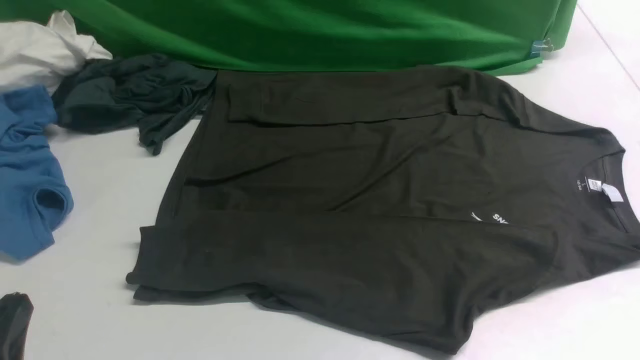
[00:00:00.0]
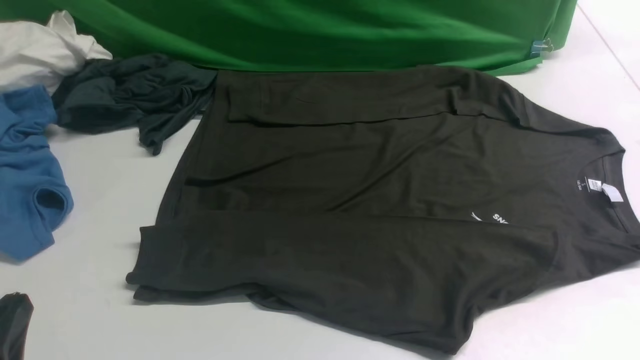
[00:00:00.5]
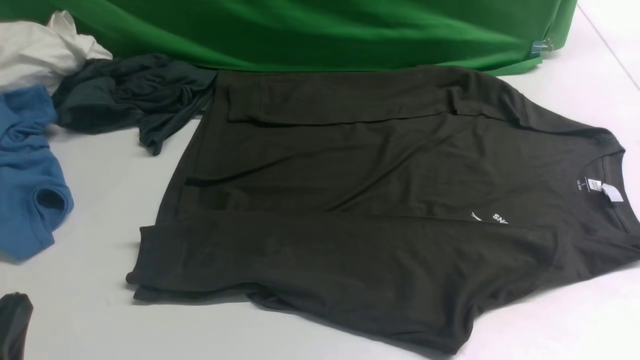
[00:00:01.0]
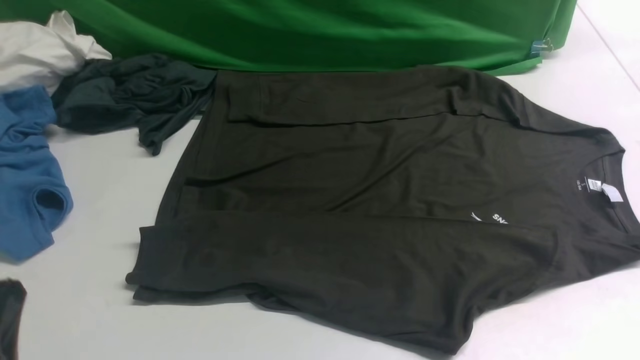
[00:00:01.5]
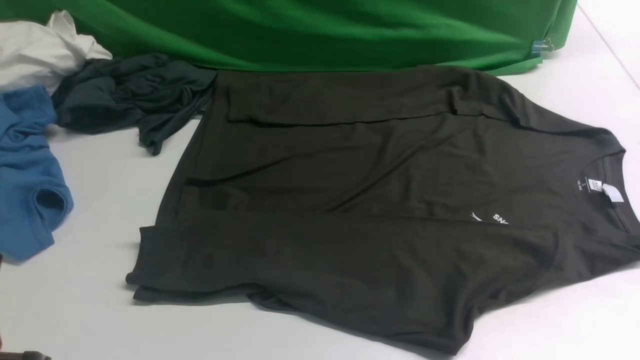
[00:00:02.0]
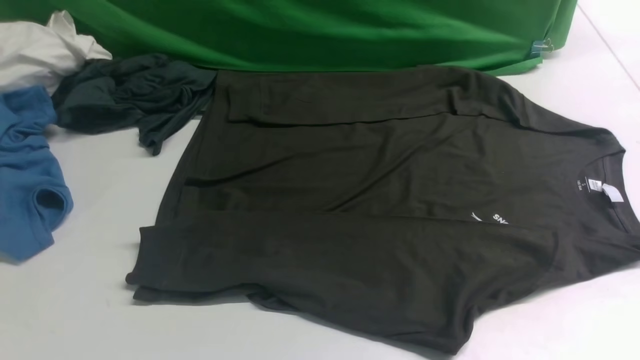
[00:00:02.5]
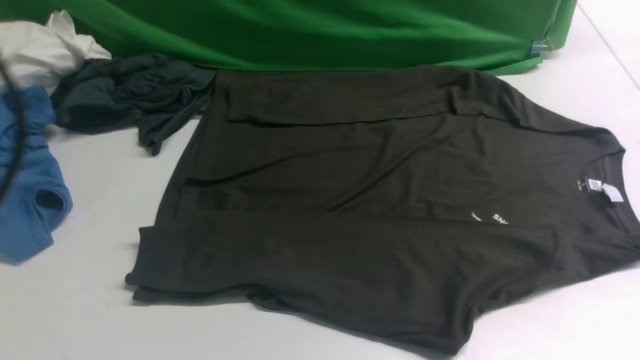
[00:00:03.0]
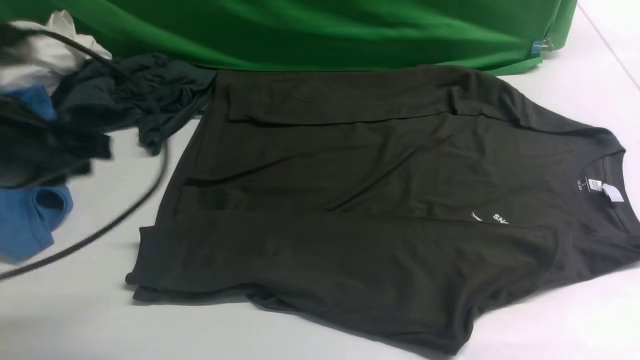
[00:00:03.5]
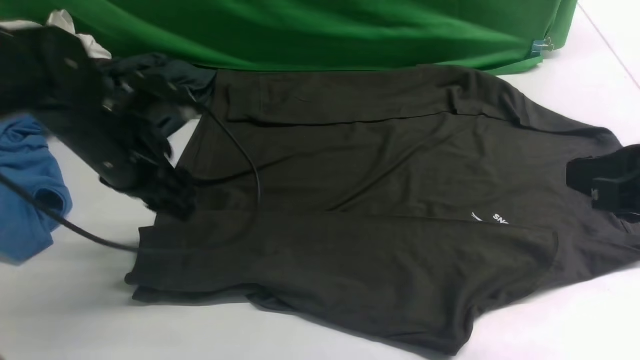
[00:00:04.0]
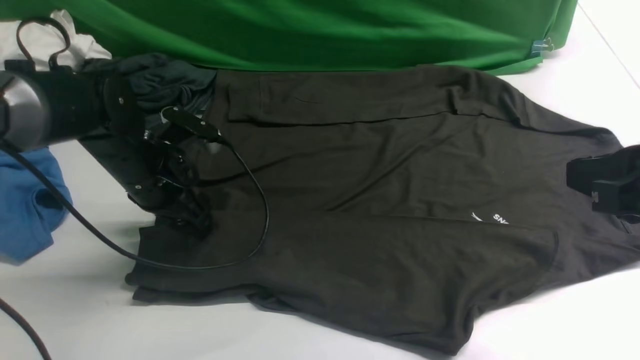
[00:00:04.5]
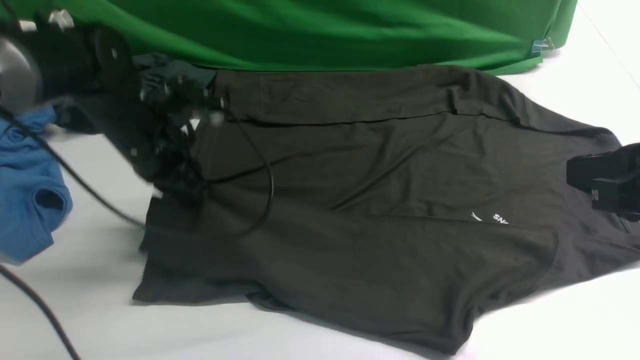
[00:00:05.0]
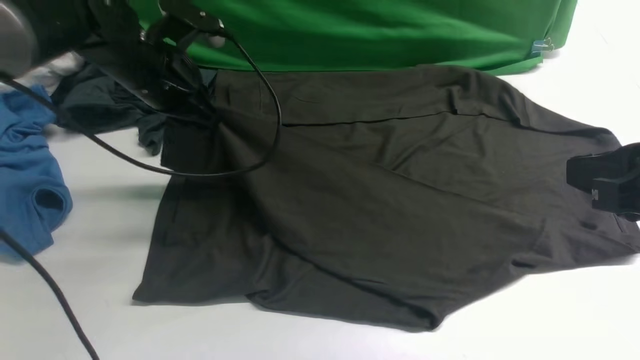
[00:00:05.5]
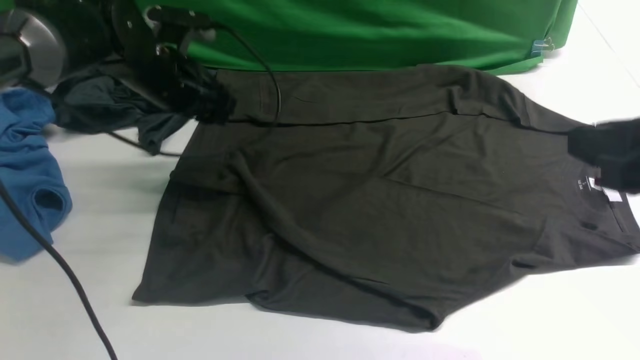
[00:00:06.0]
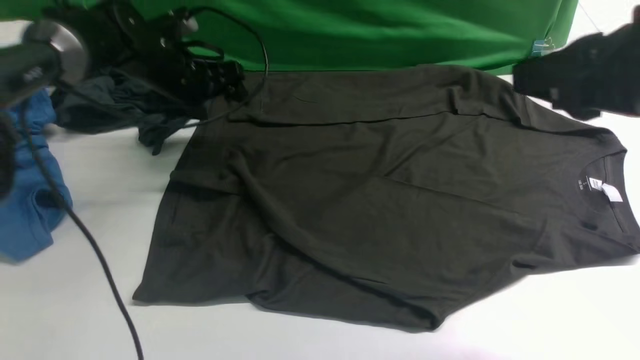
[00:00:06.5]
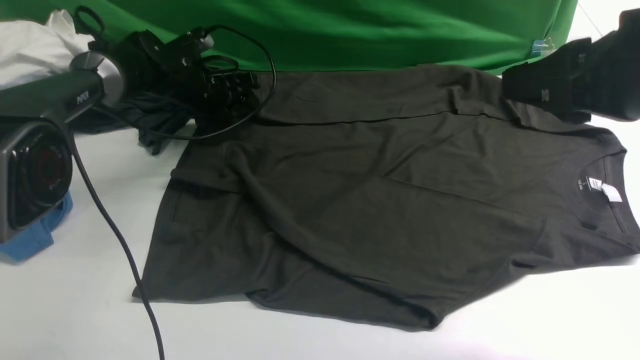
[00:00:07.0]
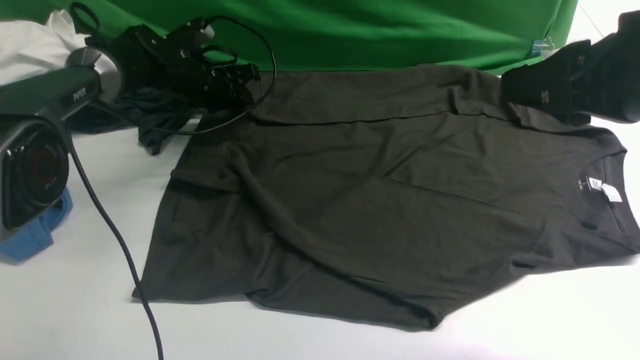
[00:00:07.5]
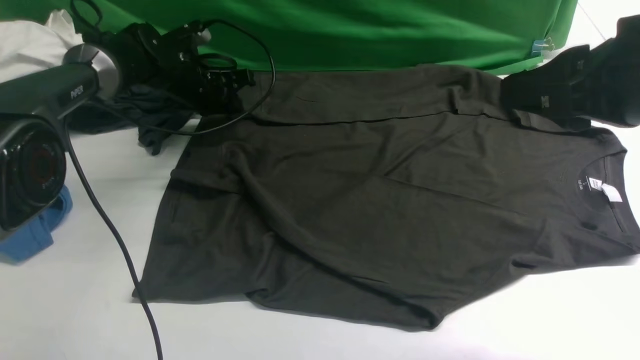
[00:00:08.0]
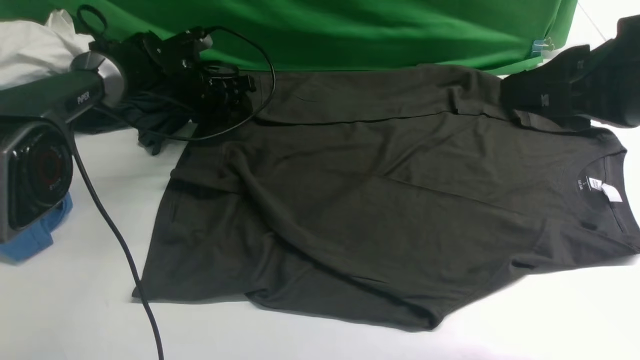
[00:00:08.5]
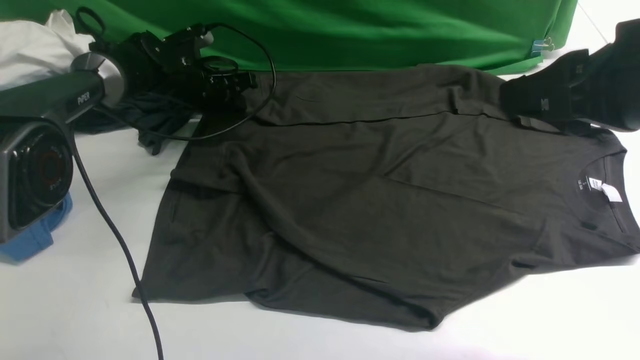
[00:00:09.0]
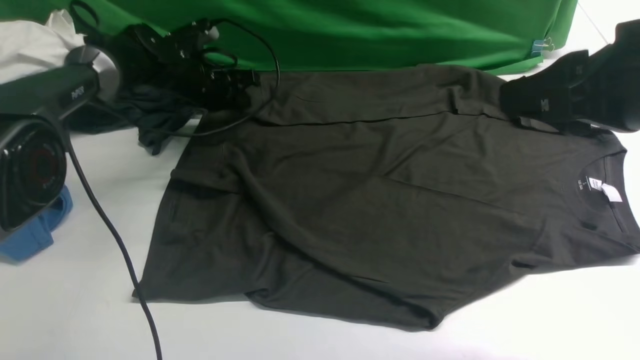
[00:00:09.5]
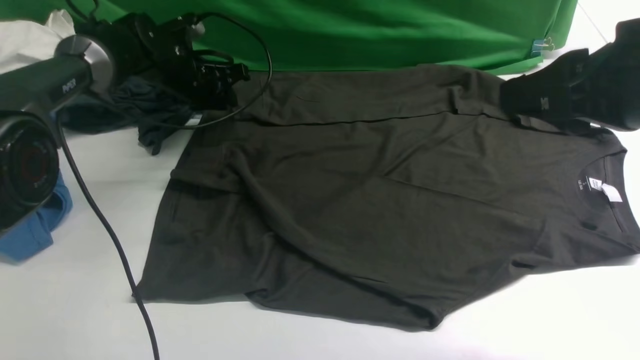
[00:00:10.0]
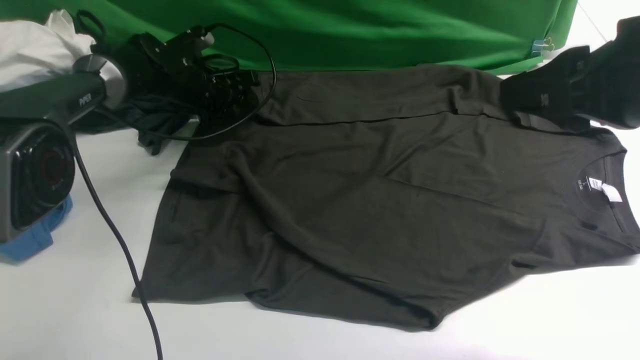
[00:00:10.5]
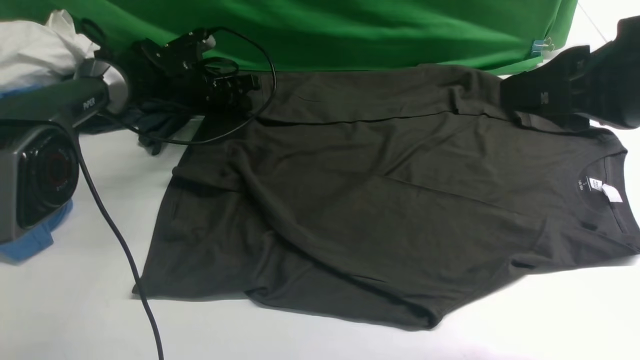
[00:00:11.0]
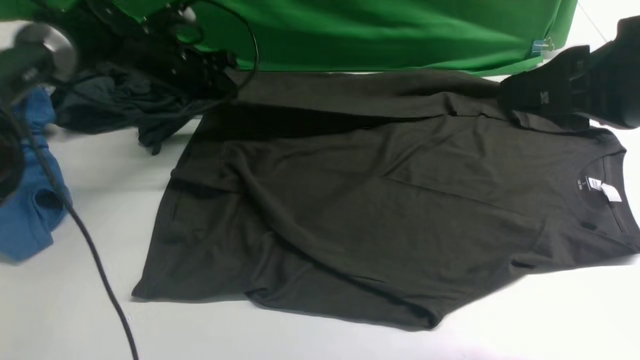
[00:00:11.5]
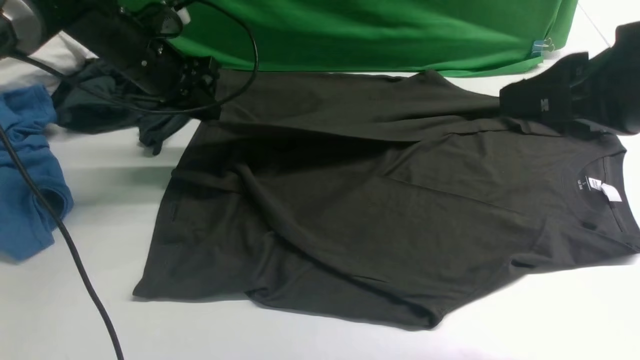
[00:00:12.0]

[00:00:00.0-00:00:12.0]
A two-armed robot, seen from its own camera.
Step, 00:00:00.0 to 00:00:04.5: use the left arm to clamp the cuff closest to it.
Step, 00:00:05.0 to 00:00:06.0: use the left arm to drag and place the cuff at the centered position on the left edge of the fabric.
Step, 00:00:06.5 to 00:00:11.0: use the left arm to clamp the cuff farthest from it.
00:00:02.0 to 00:00:04.0: The right gripper moves forward, upward and to the left, roughly 15 cm. The left gripper is displaced forward by roughly 30 cm, and opens its fingers.
00:00:04.0 to 00:00:06.0: The left gripper shifts some 10 cm forward, and closes, then opens again.
00:00:06.0 to 00:00:08.0: The right gripper shifts by roughly 5 cm; the left gripper travels forward and downward by approximately 10 cm, and closes up.
00:00:08.0 to 00:00:10.0: The grippers make only small movements.
00:00:10.0 to 00:00:12.0: The left gripper moves upward and backward, roughly 10 cm.

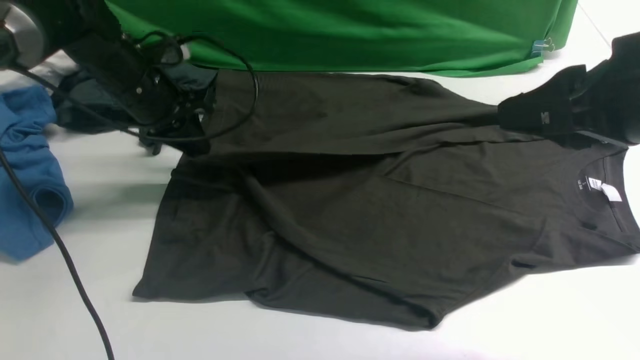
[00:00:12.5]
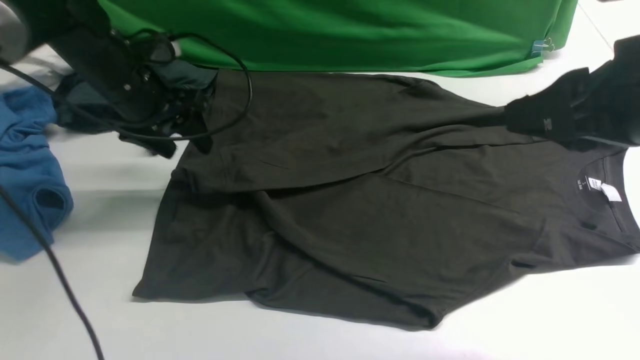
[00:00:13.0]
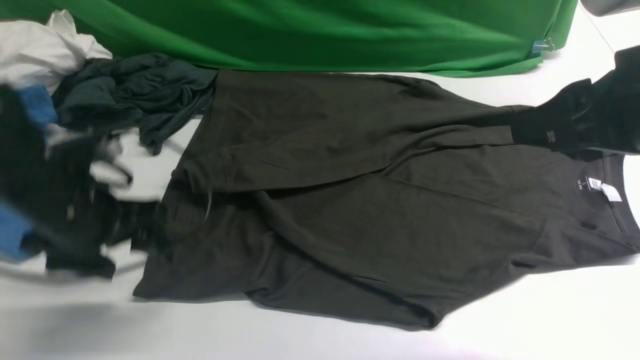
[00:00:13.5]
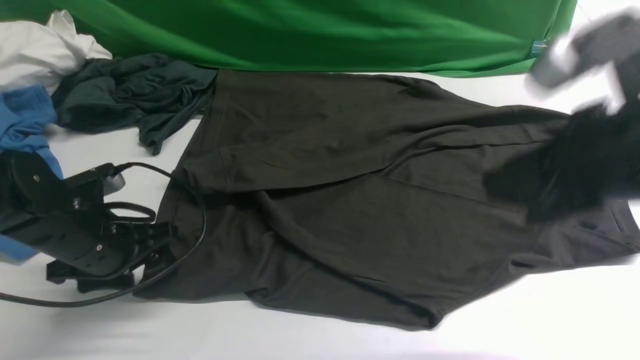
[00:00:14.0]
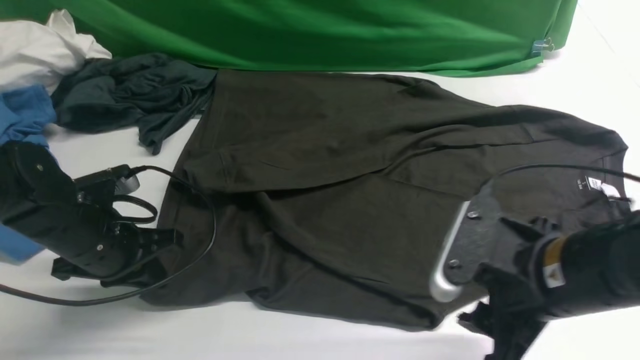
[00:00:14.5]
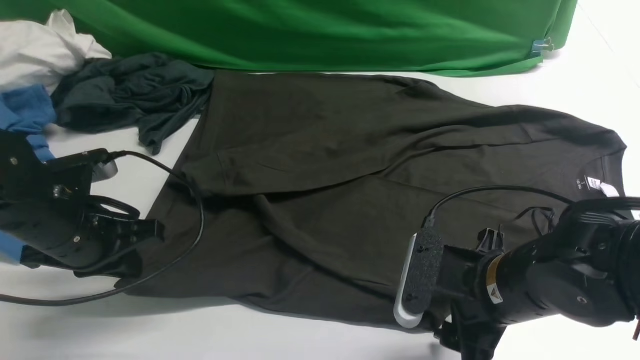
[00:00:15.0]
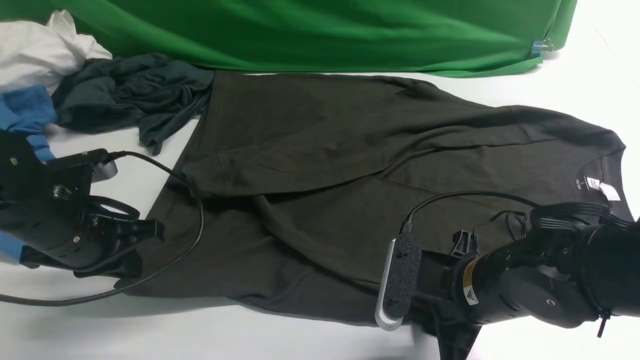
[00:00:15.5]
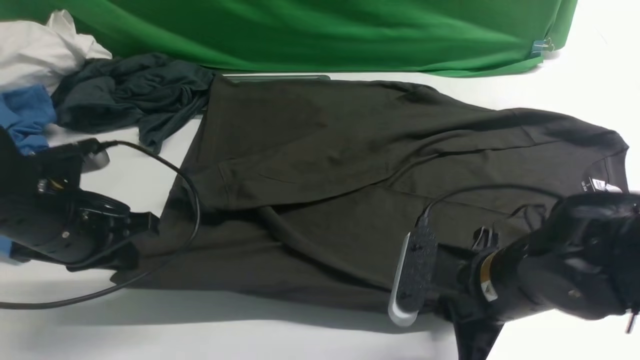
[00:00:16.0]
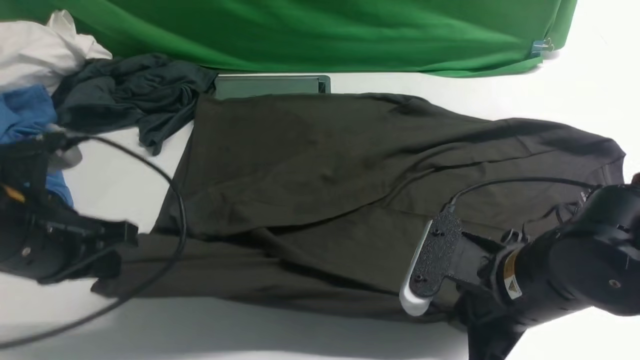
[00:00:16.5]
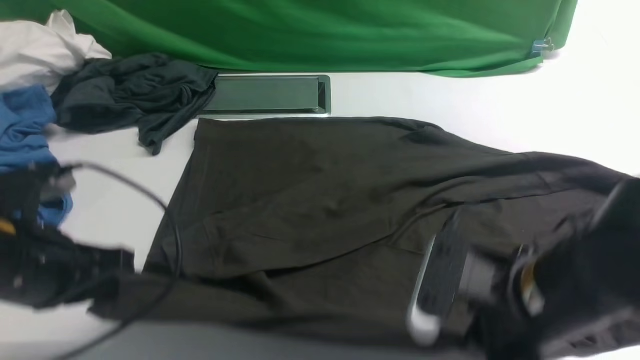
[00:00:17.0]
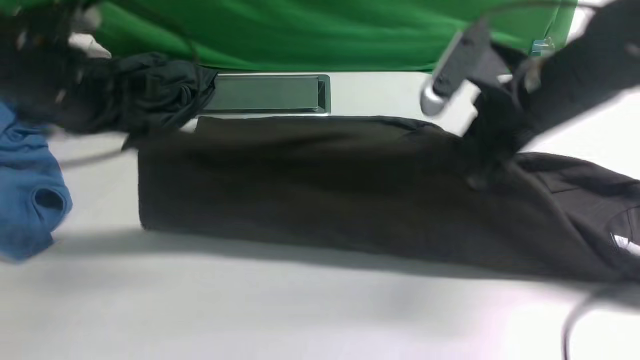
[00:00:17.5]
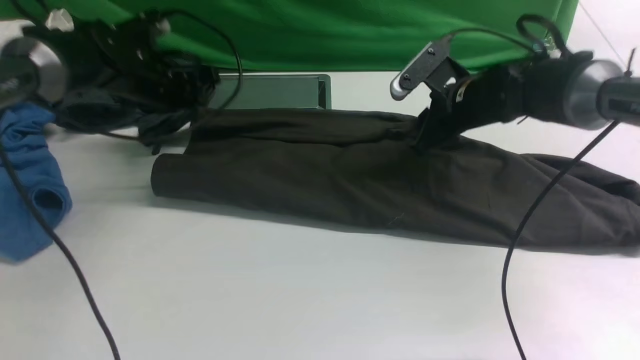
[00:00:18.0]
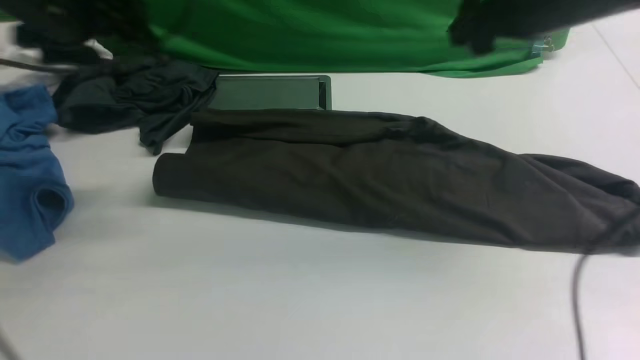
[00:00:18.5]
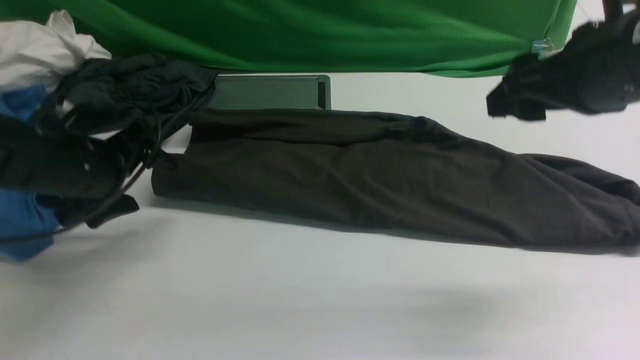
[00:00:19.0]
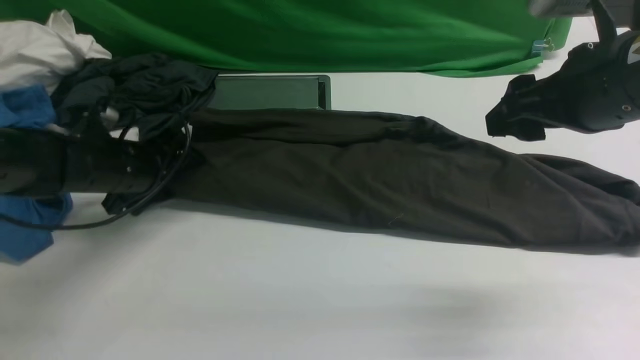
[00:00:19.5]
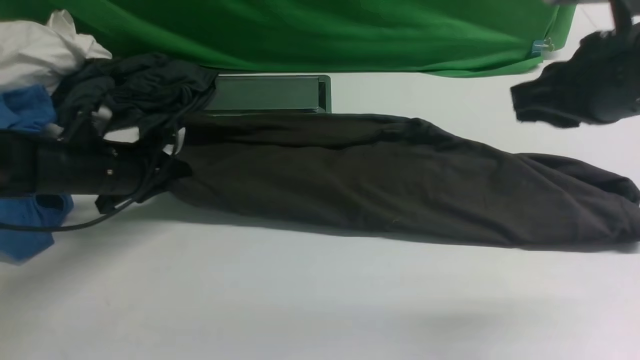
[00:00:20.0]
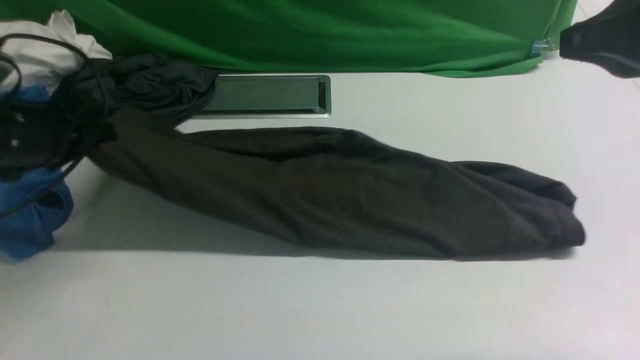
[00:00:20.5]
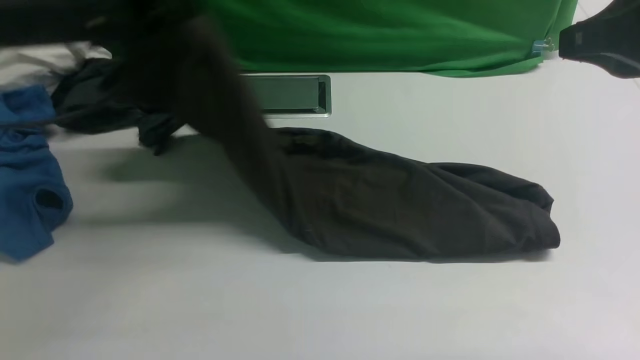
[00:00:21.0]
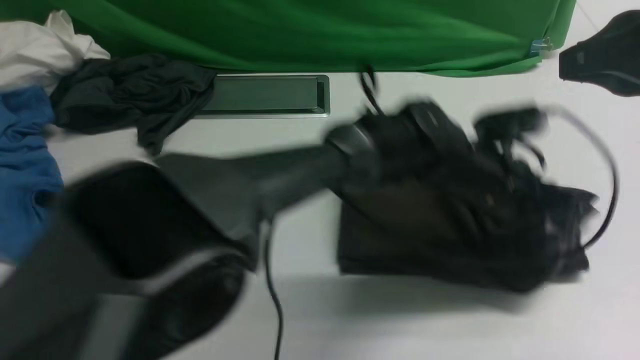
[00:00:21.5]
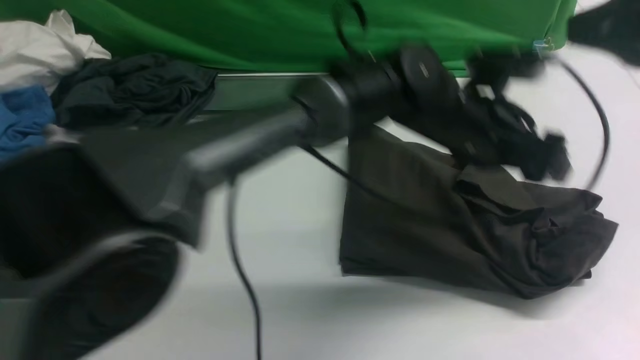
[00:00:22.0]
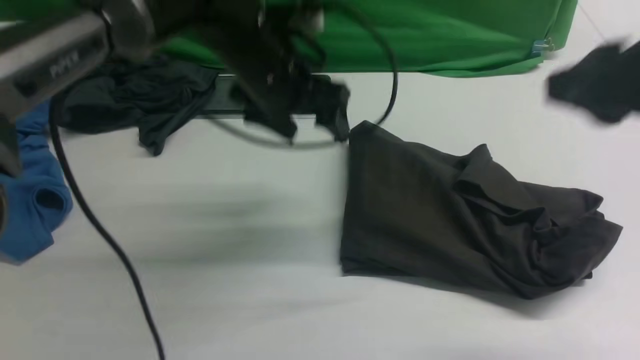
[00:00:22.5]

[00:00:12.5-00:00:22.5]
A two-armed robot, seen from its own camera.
Step, 00:00:13.5 to 00:00:16.5: use both arms simultaneously to clamp the lower edge of the clothing fabric.
Step, 00:00:17.0 to 00:00:18.5: use both arms to drag the lower edge of the fabric forward and fold it over the upper edge.
Step, 00:00:19.0 to 00:00:20.0: Hold the left edge of the fabric with your left arm.
Step, 00:00:20.5 to 00:00:22.0: Drag the left edge of the fabric to the left with your left arm and fold it to the right edge.
00:00:12.5 to 00:00:14.5: The left gripper goes roughly 20 cm backward, and opens, then closes again, while the right gripper heads downward, covering approximately 15 cm.
00:00:14.5 to 00:00:16.5: The left gripper travels upward and backward by about 10 cm; the right gripper closes.
00:00:16.5 to 00:00:18.5: The left gripper is displaced forward by approximately 20 cm, and opens. Meanwhile the right gripper heads forward and upward, covering some 25 cm, and opens up.
00:00:18.5 to 00:00:20.5: The right gripper heads backward and upward, covering some 15 cm, and closes up, while the left gripper goes approximately 10 cm backward and downward, and closes its fingers.
00:00:20.5 to 00:00:22.5: The right gripper opens up. The left gripper travels to the right by about 25 cm, and opens its fingers.
